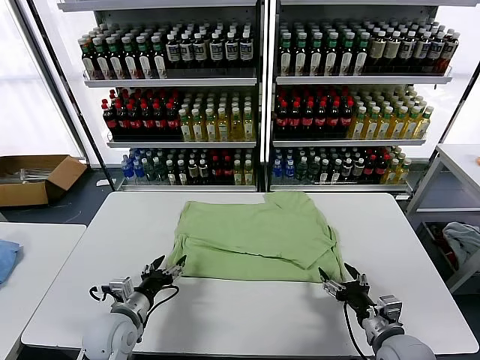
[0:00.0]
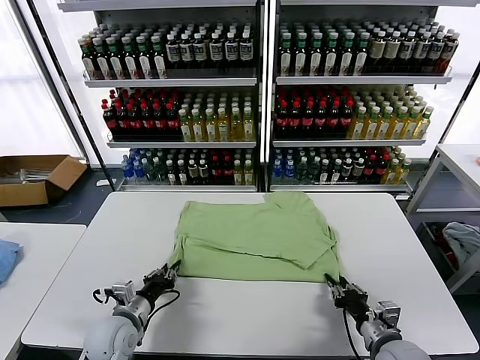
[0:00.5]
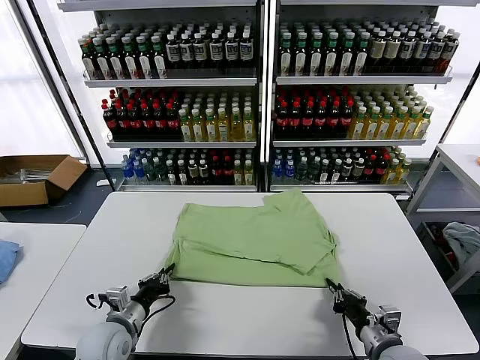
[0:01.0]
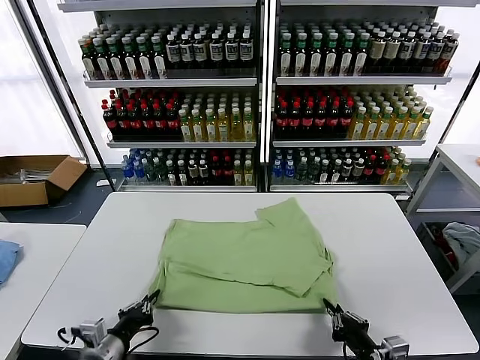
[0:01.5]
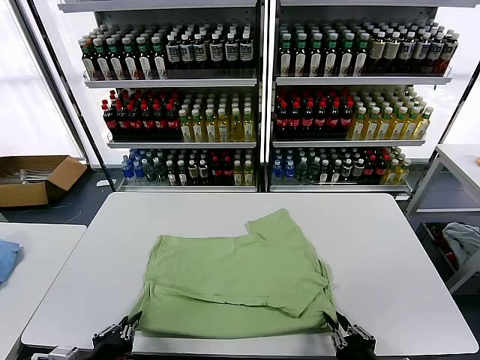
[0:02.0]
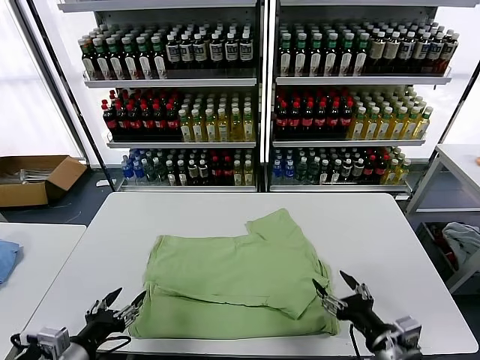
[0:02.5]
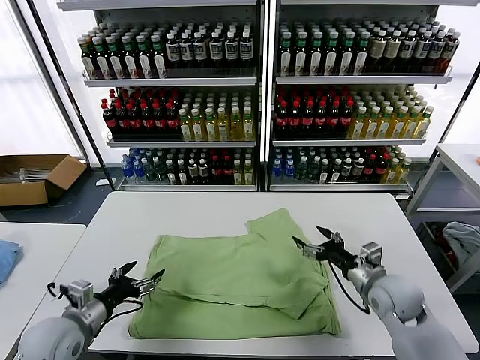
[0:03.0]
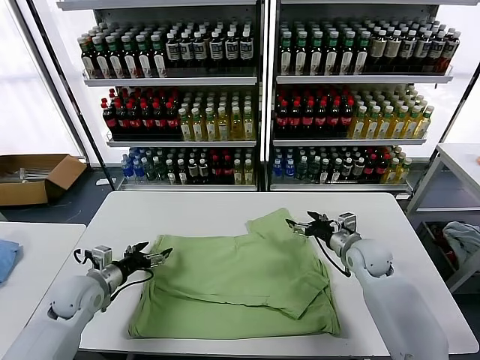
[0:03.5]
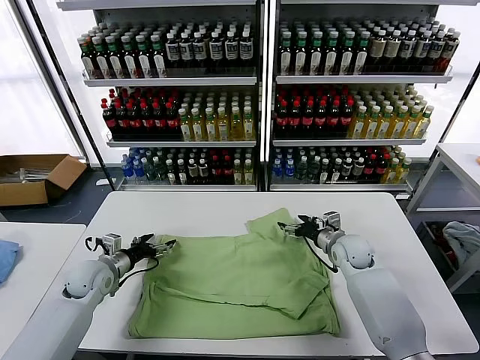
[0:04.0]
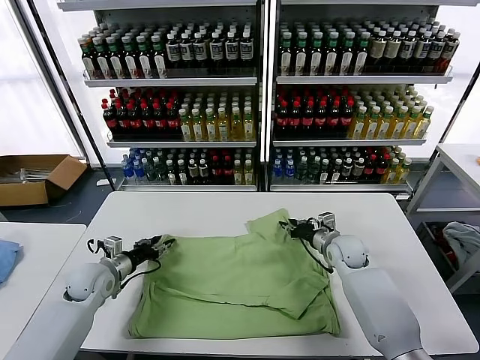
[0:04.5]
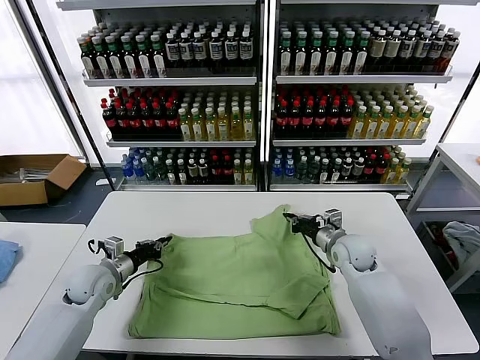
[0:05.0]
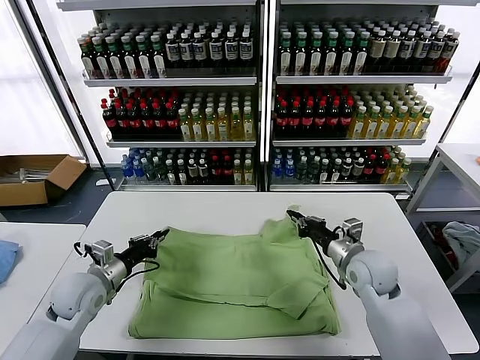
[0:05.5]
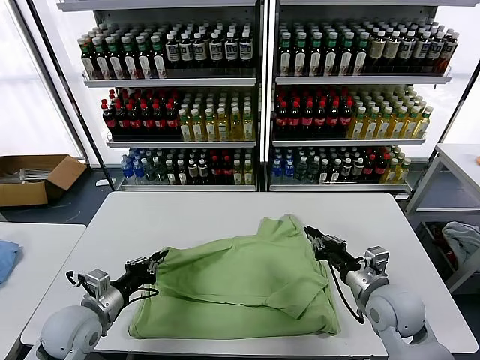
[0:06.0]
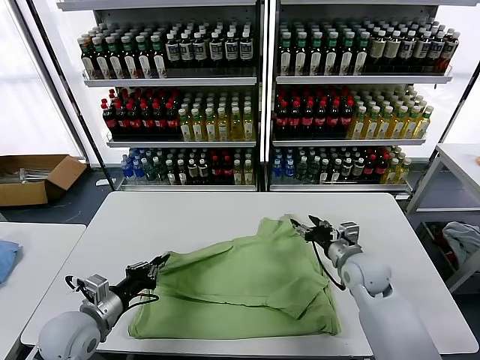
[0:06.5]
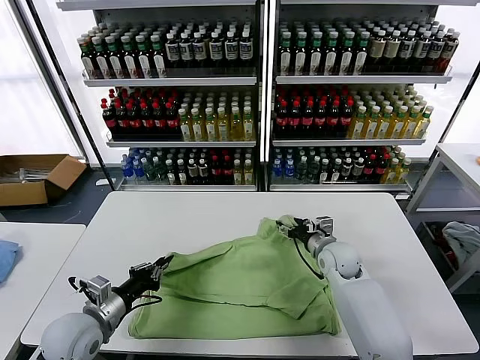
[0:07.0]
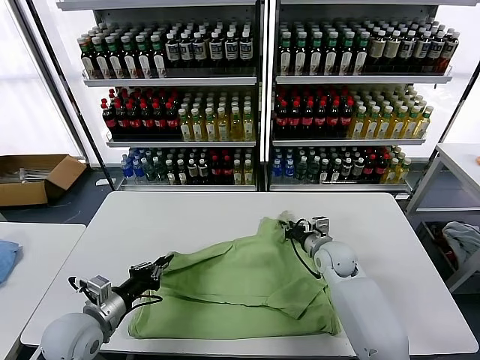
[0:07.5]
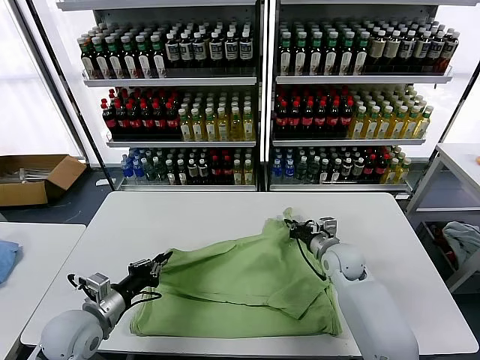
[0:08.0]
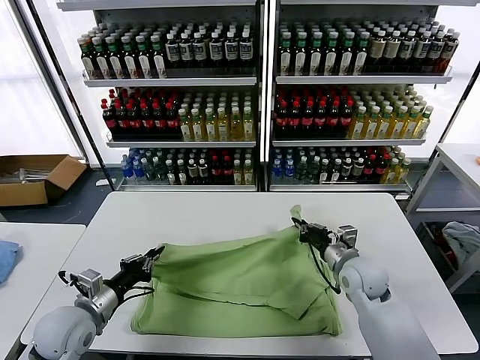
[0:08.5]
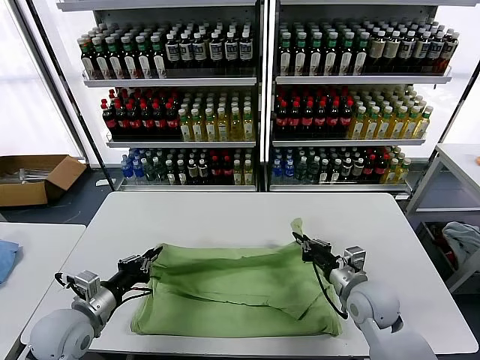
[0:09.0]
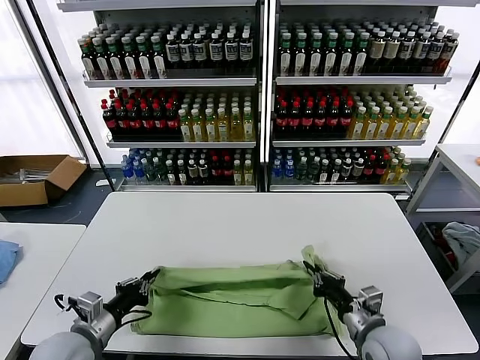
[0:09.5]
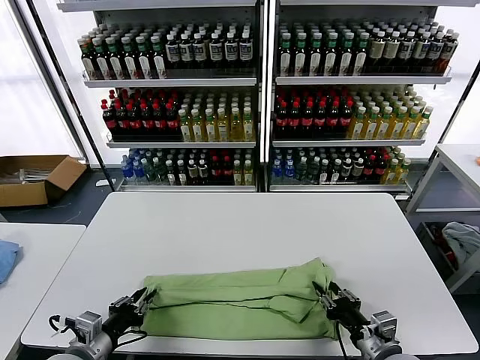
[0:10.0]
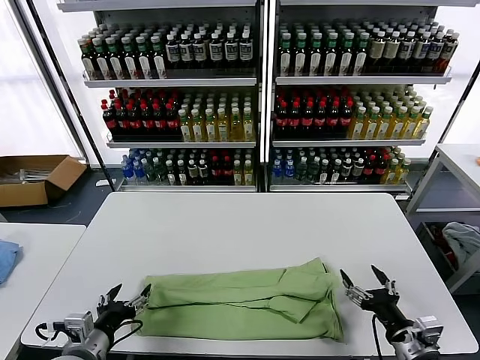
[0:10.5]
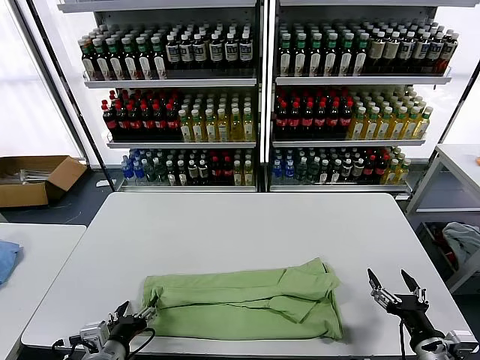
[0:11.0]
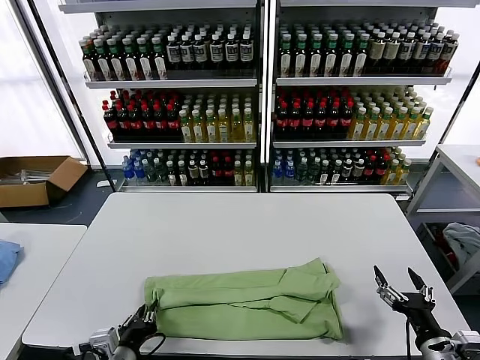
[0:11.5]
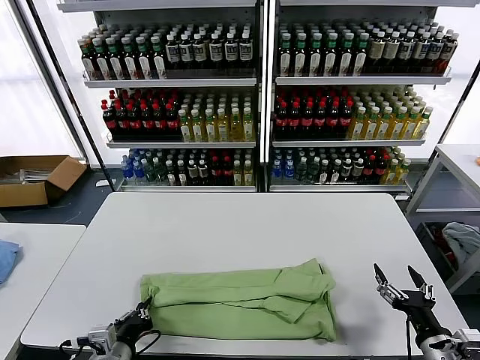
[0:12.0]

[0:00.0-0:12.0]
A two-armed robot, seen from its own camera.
Task of the whole recording: fold and organize the clothes.
Step, 0:00.0 to 0:02.0: Drag the clothes downward with both gripper.
Step, 0:02.5 to 0:04.5: use both grippers simultaneously to clamp the upper edge of the clothing fabric.
Step, 0:05.0 to 0:10.0: use both grippers to drag the upper edge of the fabric backward and fold it over the lower edge.
Step, 0:10.5 to 0:11.5: use the left gripper to clamp the left edge of the fabric.
0:00.0 to 0:02.0: The right gripper travels backward and upward by approximately 15 cm, and closes and opens again. The left gripper shifts some 15 cm backward, and closes up.
0:02.0 to 0:04.0: The two grippers go approximately 30 cm forward. The right gripper opens. The left gripper opens up.
0:04.0 to 0:06.0: The left gripper shifts roughly 15 cm backward, and closes up; the right gripper moves backward and upward, approximately 20 cm, and closes up.
0:06.0 to 0:08.0: The right gripper heads forward and downward, covering about 15 cm, and opens and closes again.
0:08.0 to 0:10.0: The left gripper travels backward by some 10 cm, while the right gripper shifts roughly 25 cm backward, and opens.
0:10.0 to 0:12.0: Both grippers move to the right, some 5 cm. The left gripper opens and closes again, while the right gripper opens up.

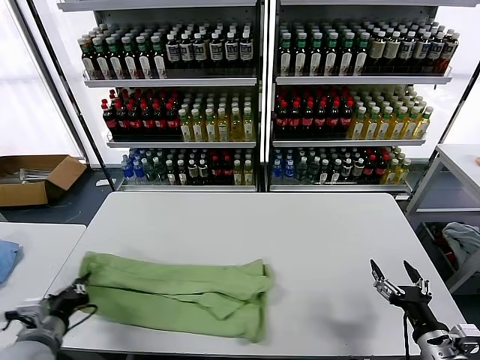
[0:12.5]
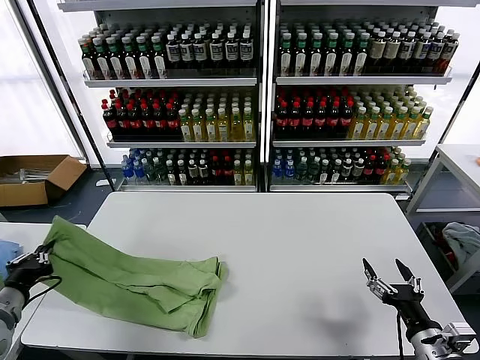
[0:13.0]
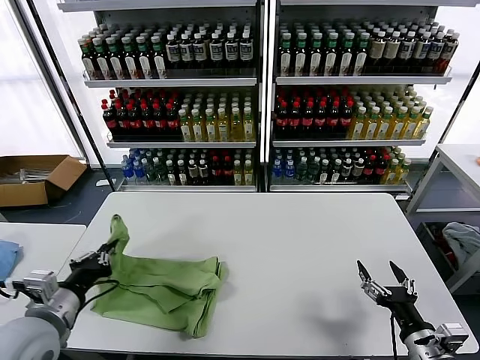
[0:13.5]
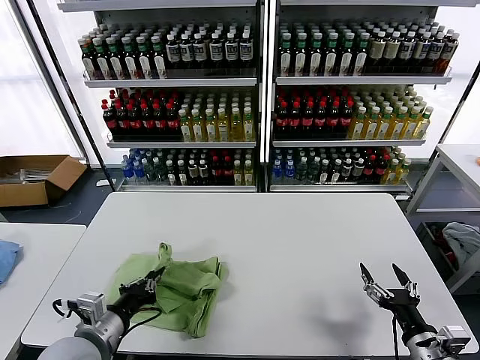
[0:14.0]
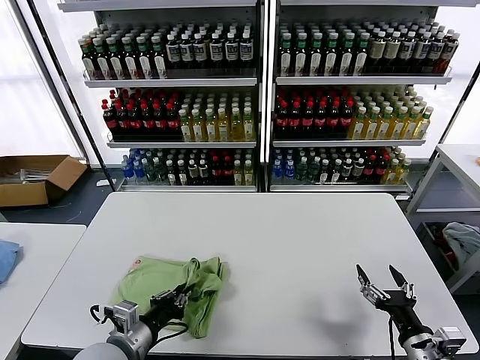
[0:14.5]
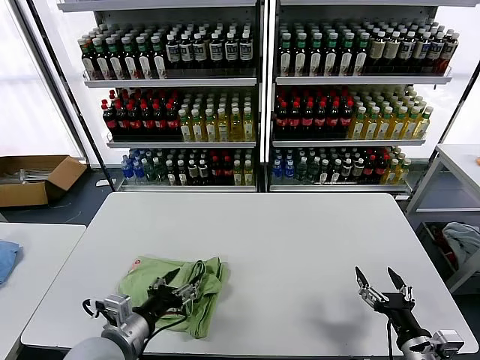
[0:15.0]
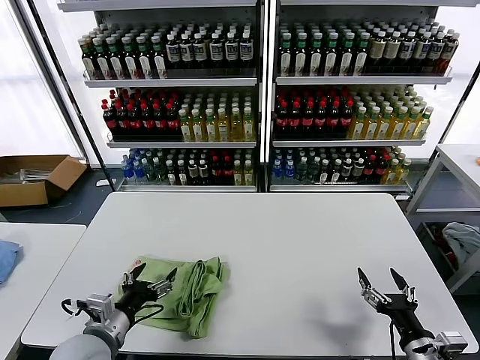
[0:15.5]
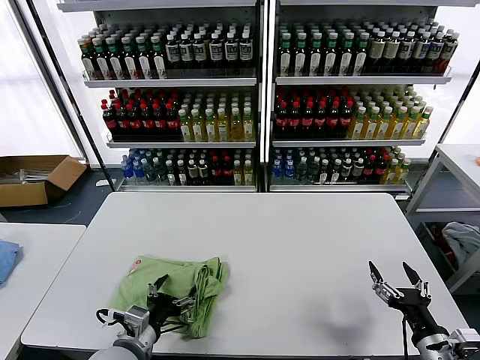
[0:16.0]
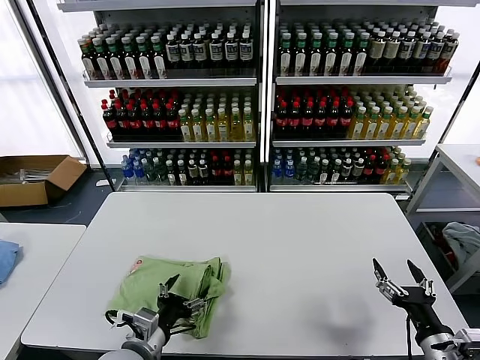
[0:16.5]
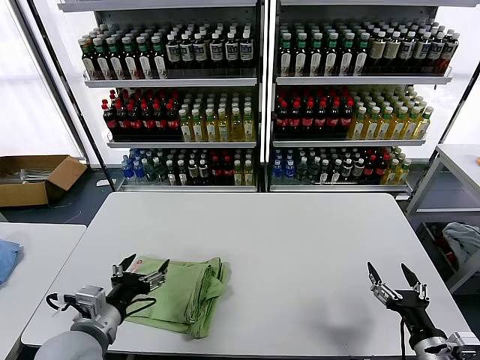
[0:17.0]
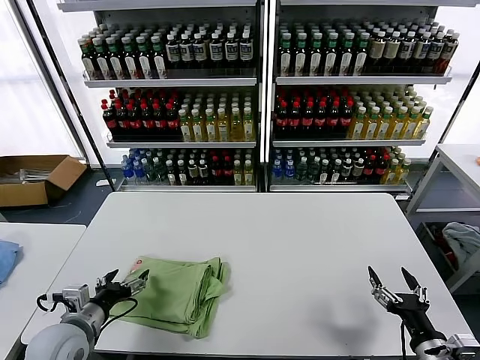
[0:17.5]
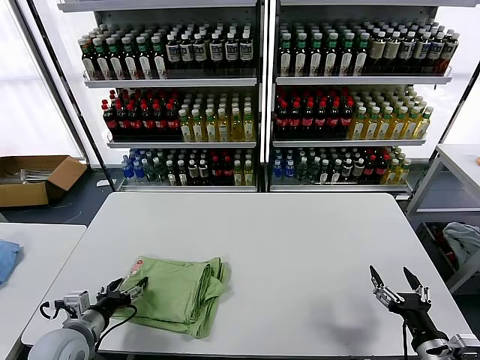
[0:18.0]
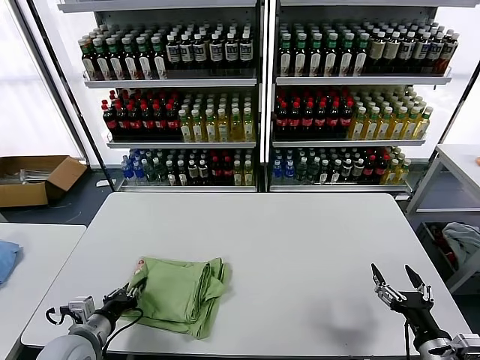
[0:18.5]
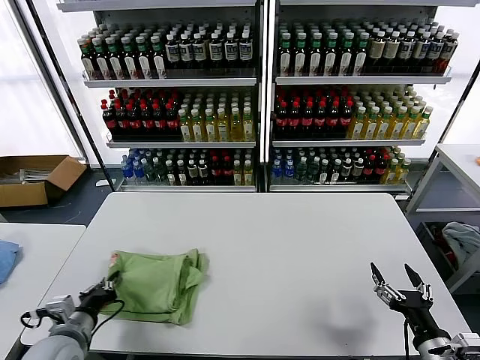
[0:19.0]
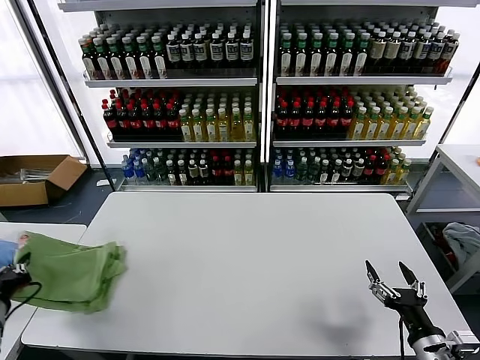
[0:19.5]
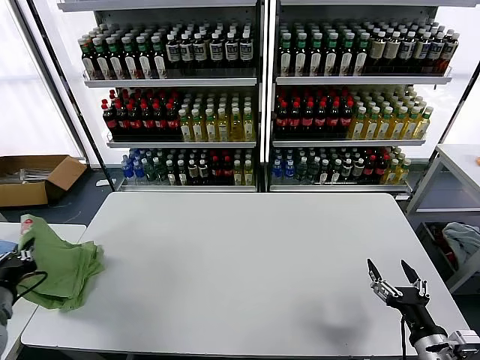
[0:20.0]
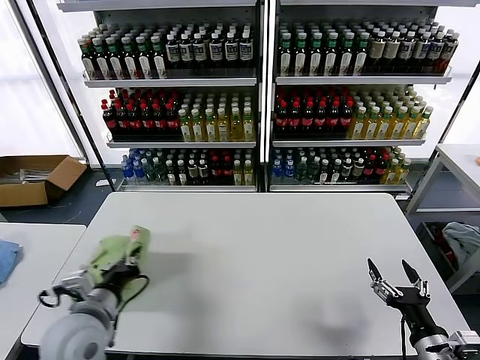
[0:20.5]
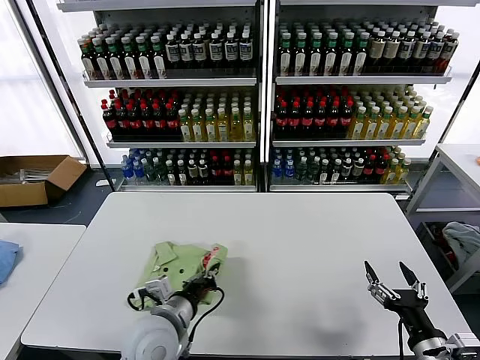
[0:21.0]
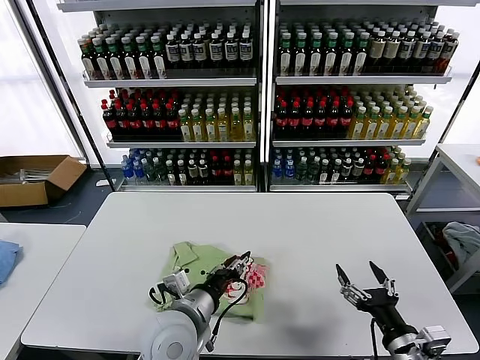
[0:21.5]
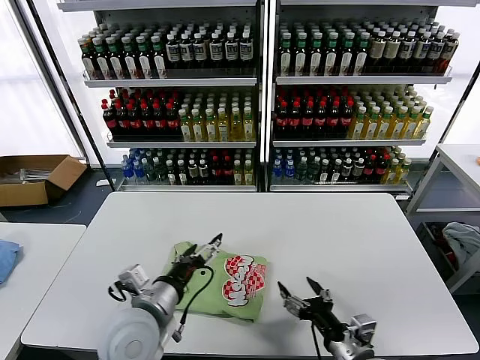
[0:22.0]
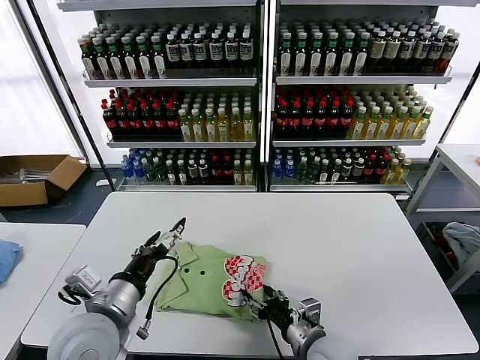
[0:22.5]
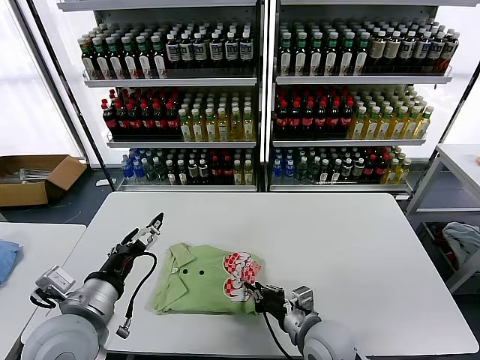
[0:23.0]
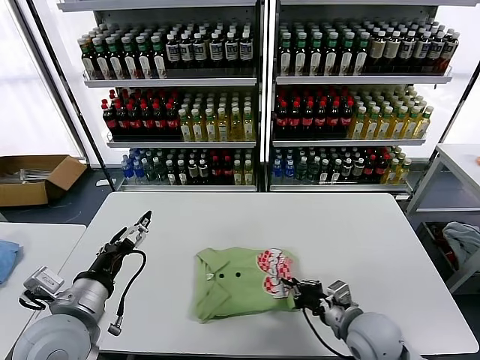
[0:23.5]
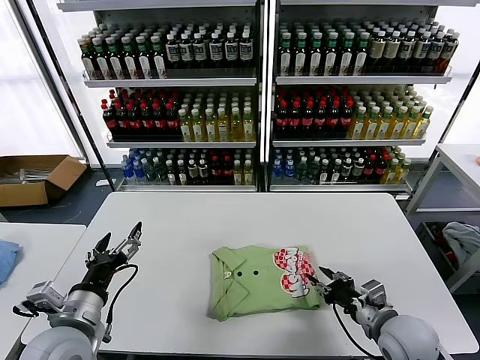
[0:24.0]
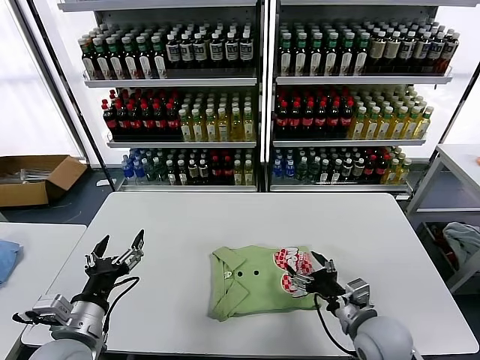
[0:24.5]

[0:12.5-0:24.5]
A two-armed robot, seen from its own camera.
Task of the whole recording: fold and organize the clothes.
Step, 0:12.5 to 0:15.0: use the left gripper to drag the left edge of the fabric to the left and folds it over the right edge.
Step, 0:15.5 to 0:21.5: Flip the folded clothes over with left gripper.
0:12.5 to 0:14.5: The left gripper goes about 15 cm to the right.
0:14.5 to 0:16.5: The left gripper opens.
0:16.5 to 0:18.5: The left gripper travels to the left by about 15 cm, and closes up.
0:18.5 to 0:20.5: The left gripper is displaced upward by roughly 10 cm, and goes to the left and returns, some 15 cm each way.
0:20.5 to 0:22.5: The right gripper moves to the left and forward, approximately 20 cm. Meanwhile the left gripper heads to the right, covering roughly 5 cm, and opens its fingers.
0:22.5 to 0:24.5: The left gripper travels to the left by about 5 cm, while the right gripper is displaced to the right by approximately 10 cm, and closes, then reopens.

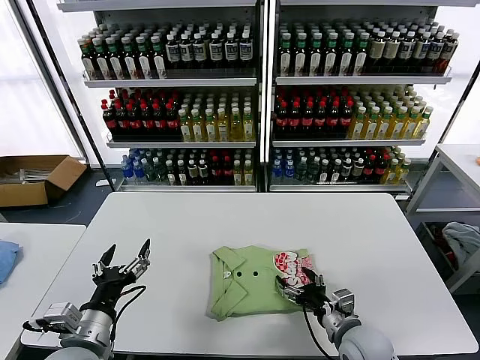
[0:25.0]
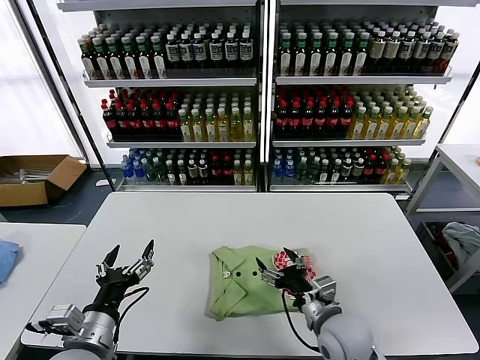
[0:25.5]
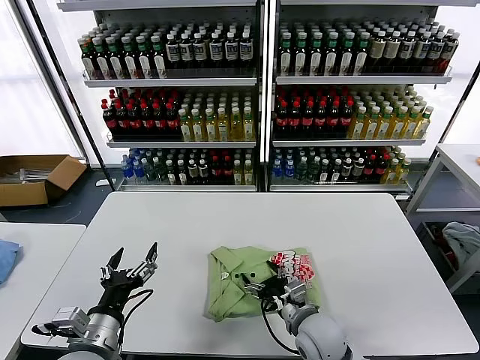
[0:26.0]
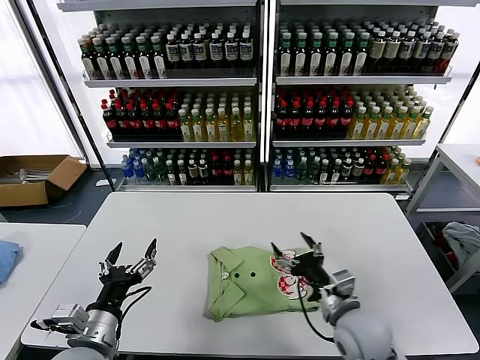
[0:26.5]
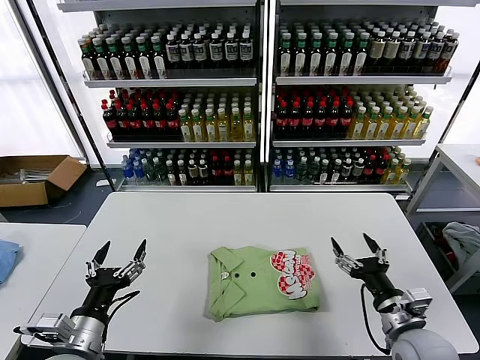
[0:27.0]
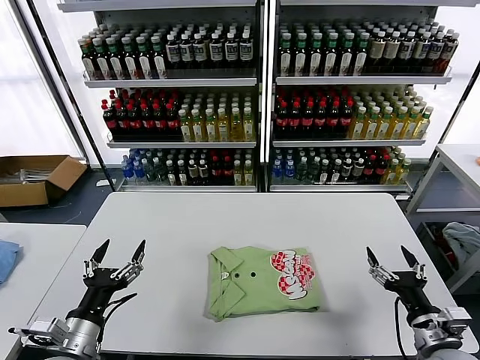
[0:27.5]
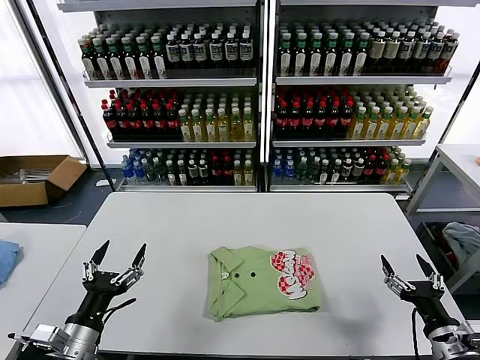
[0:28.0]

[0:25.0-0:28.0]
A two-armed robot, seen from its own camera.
Task of the whole recording: fold and organize the clothes.
0:25.0 to 0:26.5: The right gripper is displaced upward by some 5 cm.
0:26.5 to 0:28.0: The right gripper is displaced to the right and backward by roughly 20 cm.
